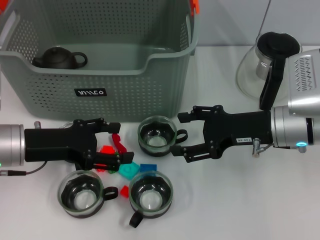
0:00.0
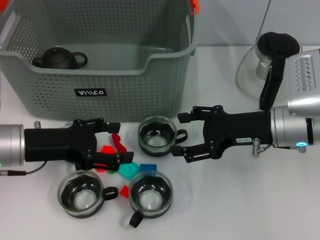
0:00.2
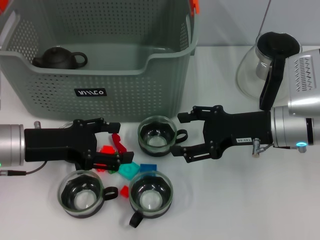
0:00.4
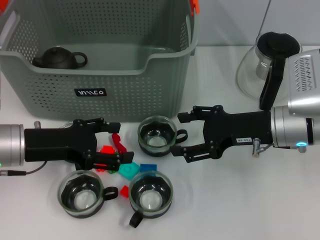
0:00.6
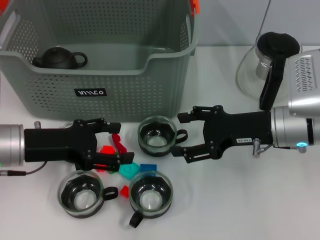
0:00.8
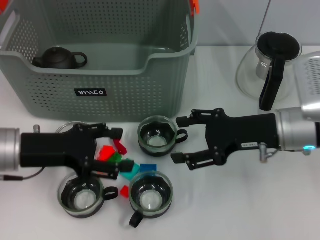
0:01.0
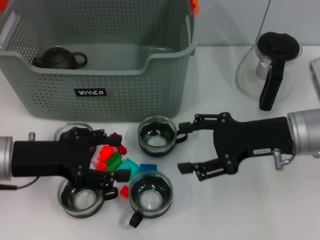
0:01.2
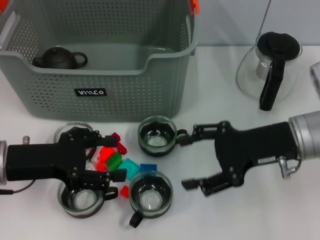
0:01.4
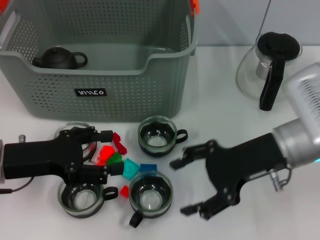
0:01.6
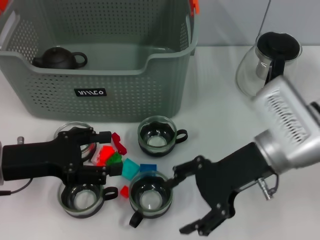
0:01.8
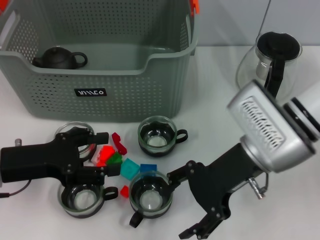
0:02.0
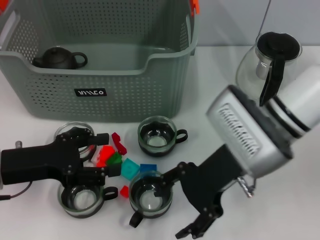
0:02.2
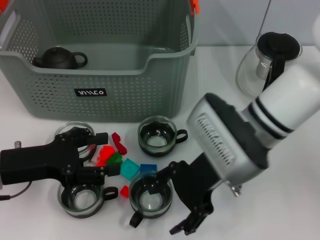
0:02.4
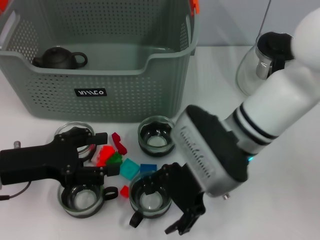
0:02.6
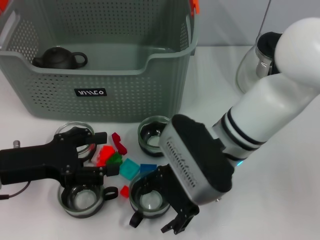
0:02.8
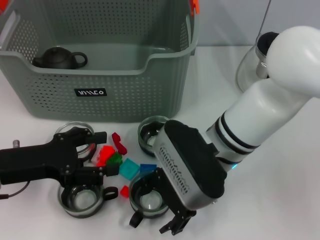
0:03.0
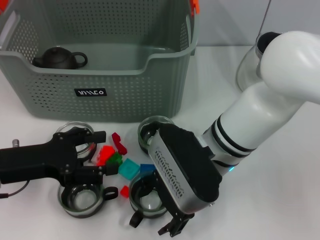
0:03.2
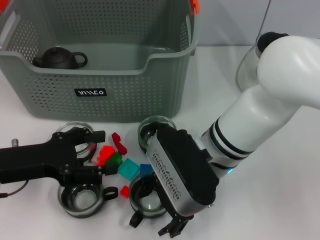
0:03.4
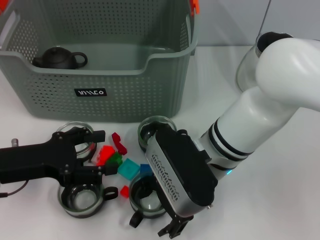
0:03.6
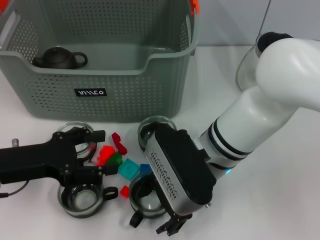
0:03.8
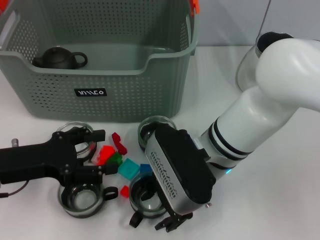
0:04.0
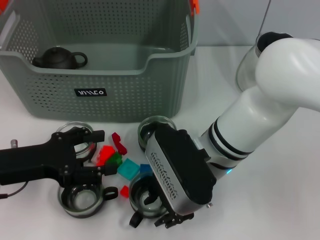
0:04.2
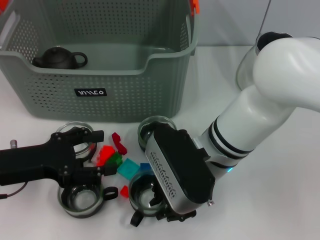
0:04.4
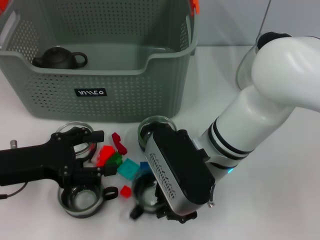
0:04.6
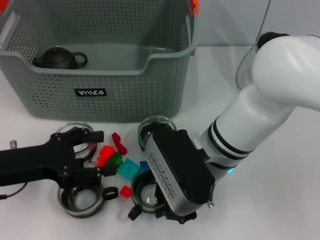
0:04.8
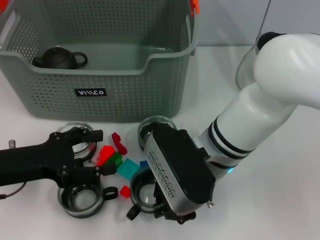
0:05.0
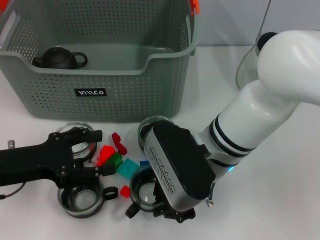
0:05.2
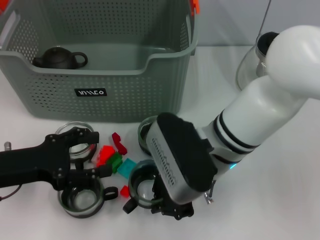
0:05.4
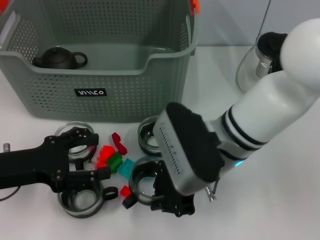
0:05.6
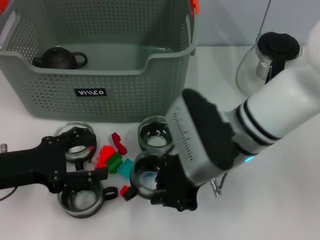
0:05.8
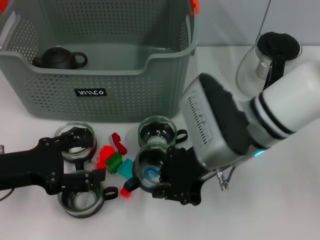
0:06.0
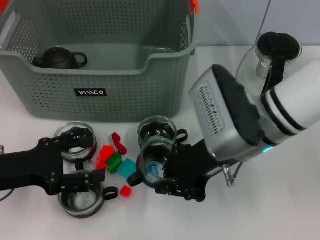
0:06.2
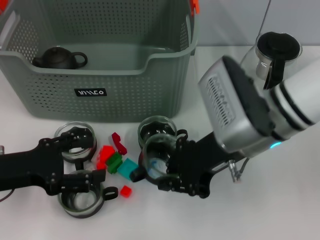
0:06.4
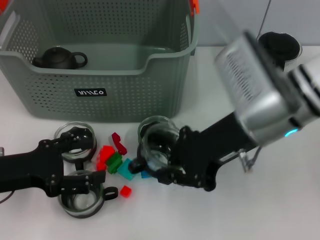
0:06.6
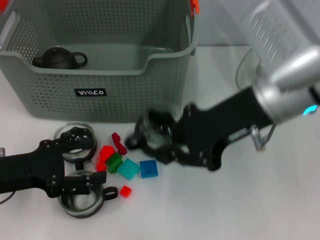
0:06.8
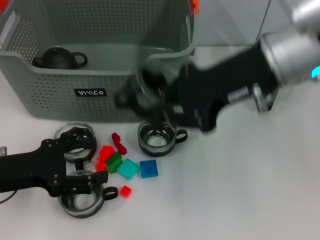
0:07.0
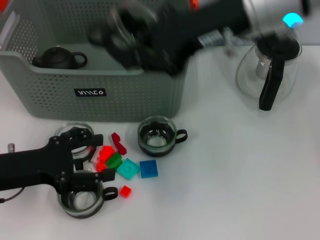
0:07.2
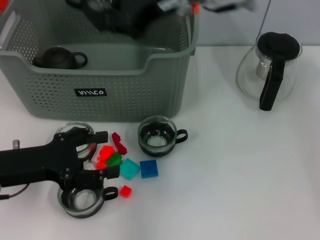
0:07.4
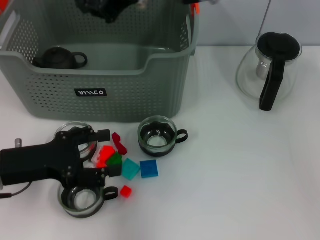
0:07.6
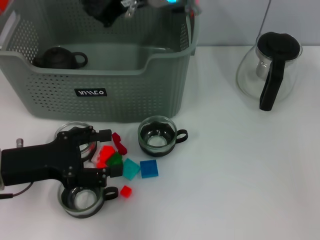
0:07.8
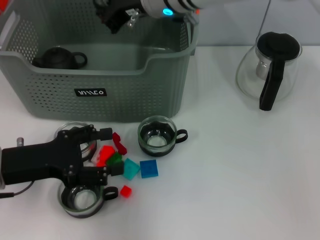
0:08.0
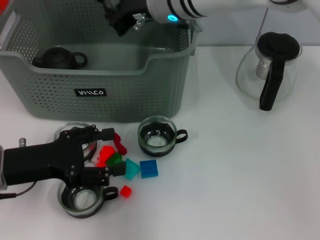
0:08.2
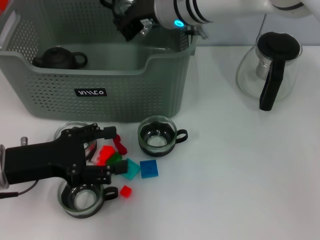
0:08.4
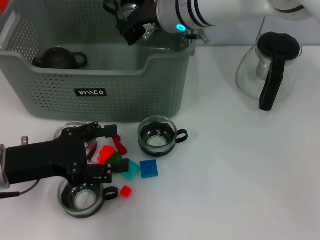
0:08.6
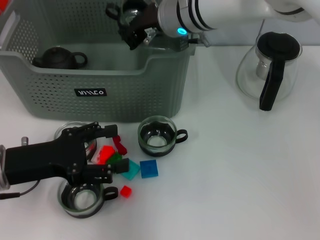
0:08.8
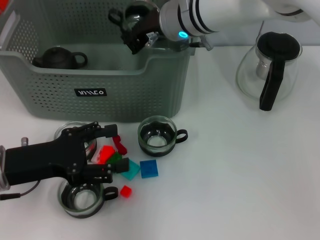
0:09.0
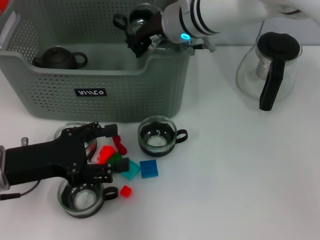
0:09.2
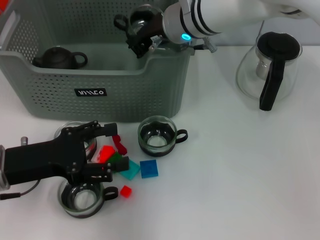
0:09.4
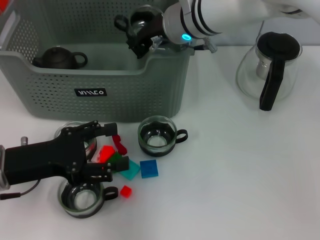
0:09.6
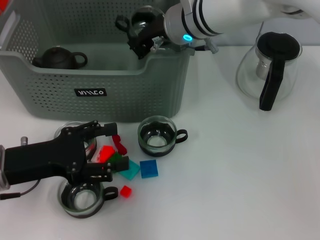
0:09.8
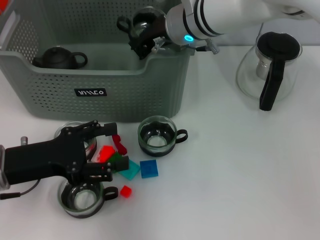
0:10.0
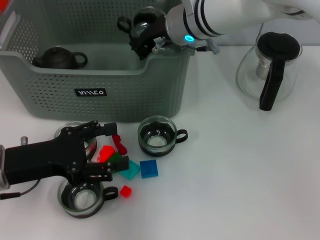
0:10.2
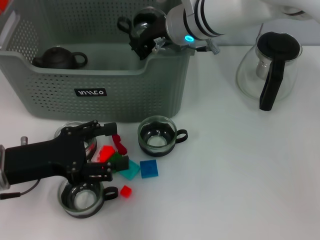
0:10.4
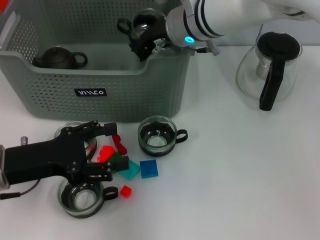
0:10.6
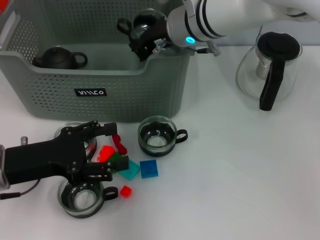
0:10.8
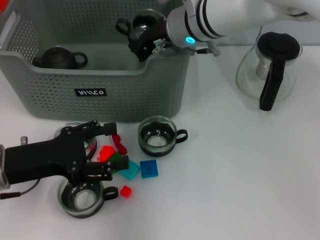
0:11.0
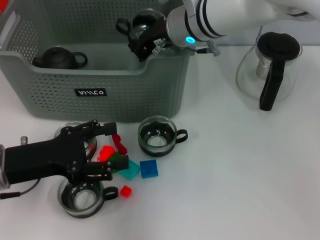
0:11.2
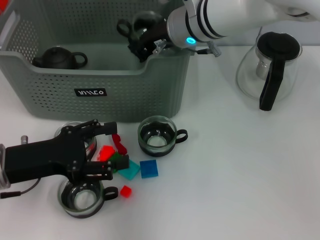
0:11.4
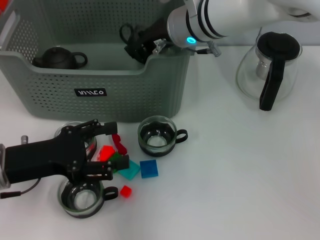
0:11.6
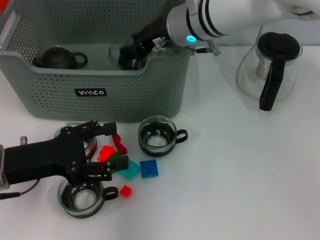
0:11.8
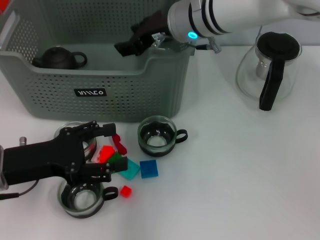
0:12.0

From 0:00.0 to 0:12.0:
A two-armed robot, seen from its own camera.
Task of the whole recording: pick up the teacup on the table and place it into the storage bin, pick up the block on the table and place it into the storage bin.
Step, from 0:00.0 to 0:04.6: Grasp the cup with right gripper.
From 0:01.6 to 0:03.0: The right gripper moves to the left, roughly 10 cm.
From 0:03.0 to 0:04.4: The right gripper closes.
From 0:04.4 to 0:06.0: The right gripper ends up roughly 5 cm from where it was, and closes its fingers.
From 0:06.0 to 0:07.6: The right gripper goes approximately 20 cm upward, forward and to the left.
From 0:07.6 to 0:09.0: The right gripper shifts some 10 cm downward.
From 0:09.0 to 0:10.4: Both grippers stay about where they are.
From 0:10.4 to 0:12.0: The right gripper opens up.

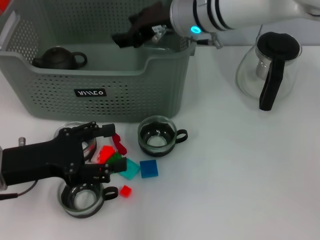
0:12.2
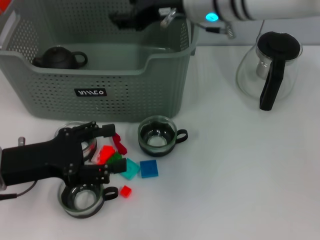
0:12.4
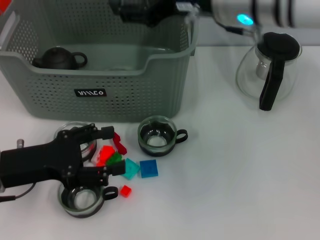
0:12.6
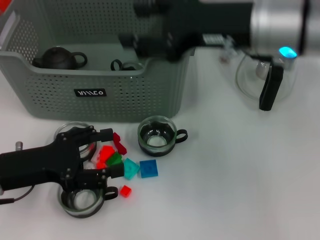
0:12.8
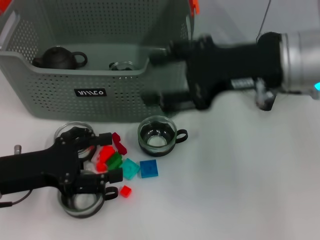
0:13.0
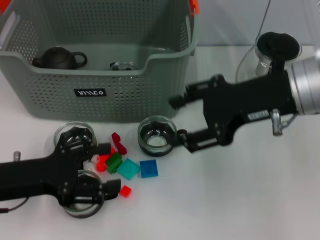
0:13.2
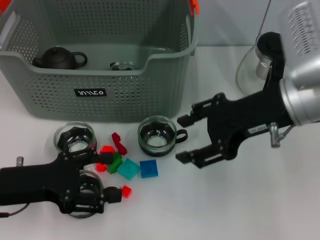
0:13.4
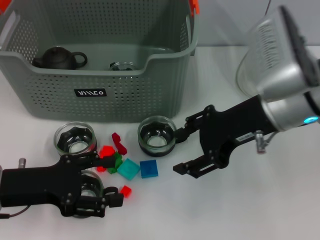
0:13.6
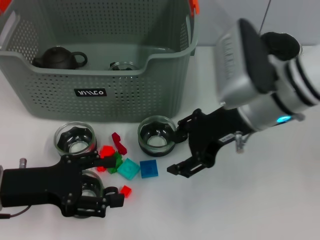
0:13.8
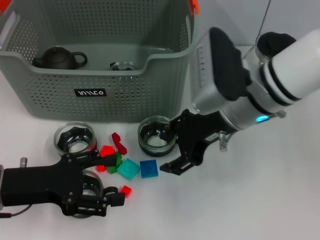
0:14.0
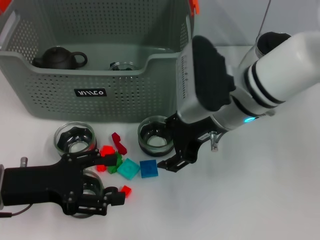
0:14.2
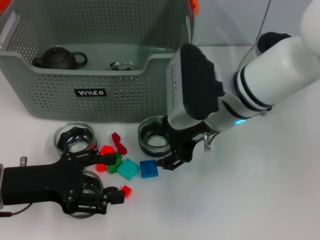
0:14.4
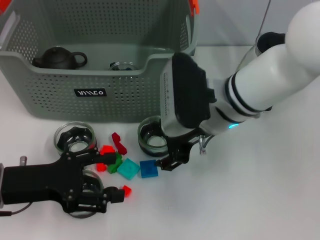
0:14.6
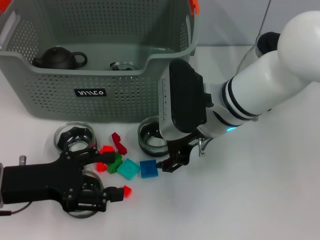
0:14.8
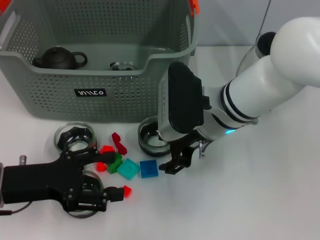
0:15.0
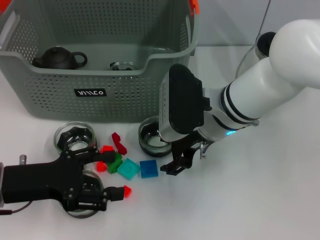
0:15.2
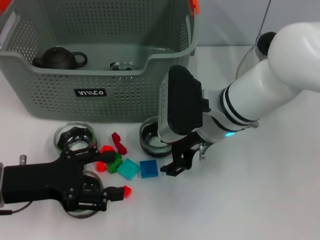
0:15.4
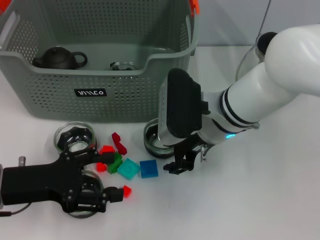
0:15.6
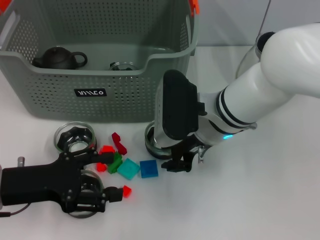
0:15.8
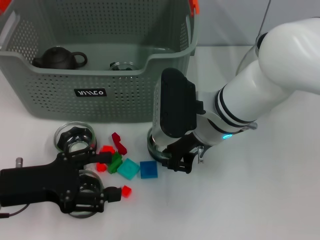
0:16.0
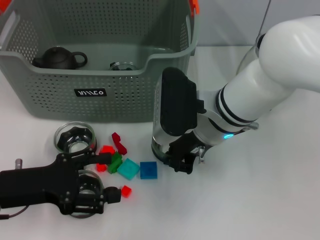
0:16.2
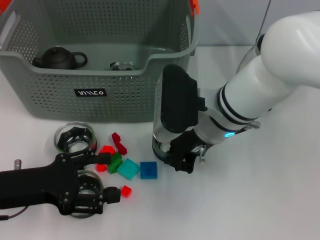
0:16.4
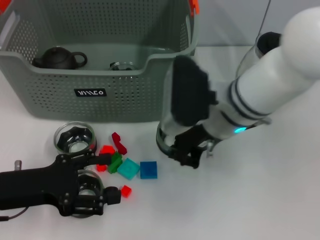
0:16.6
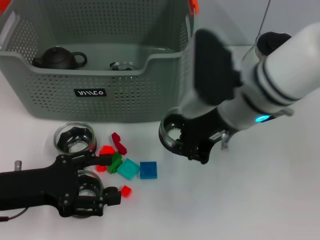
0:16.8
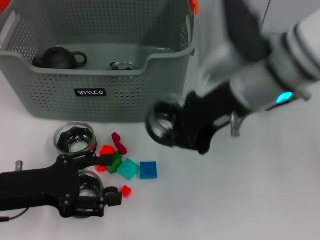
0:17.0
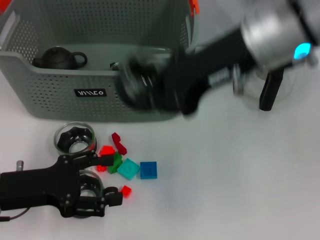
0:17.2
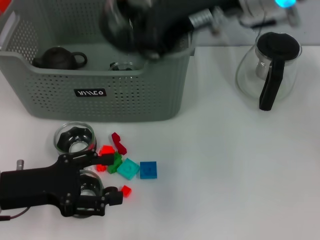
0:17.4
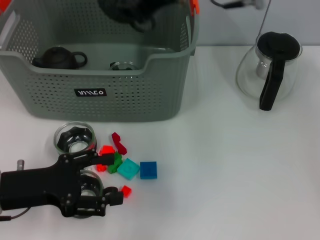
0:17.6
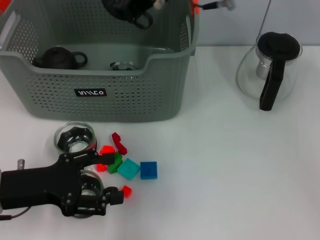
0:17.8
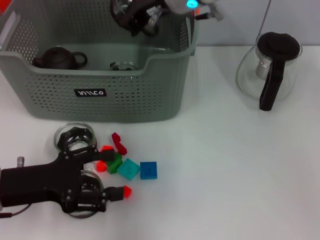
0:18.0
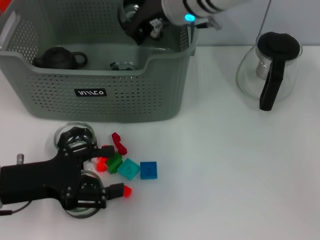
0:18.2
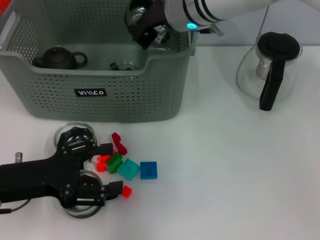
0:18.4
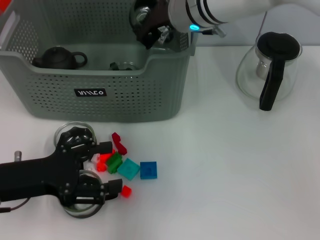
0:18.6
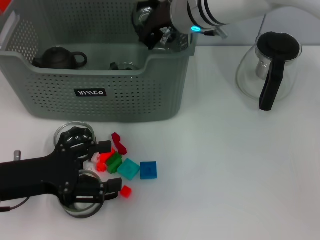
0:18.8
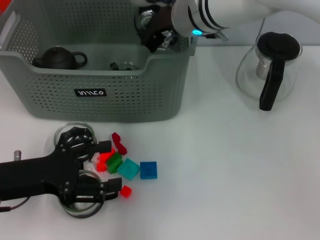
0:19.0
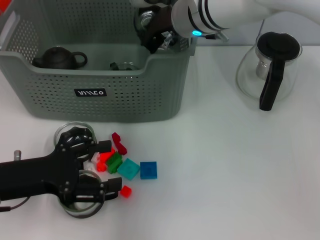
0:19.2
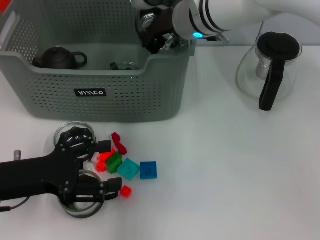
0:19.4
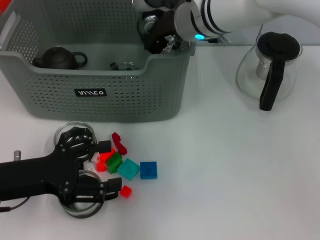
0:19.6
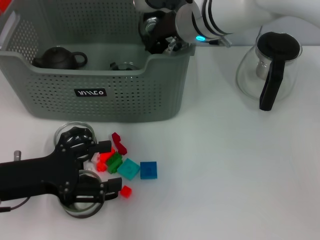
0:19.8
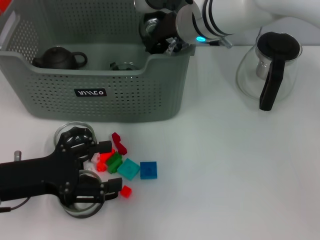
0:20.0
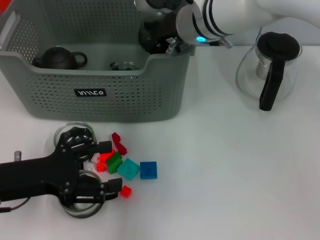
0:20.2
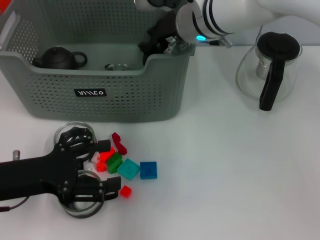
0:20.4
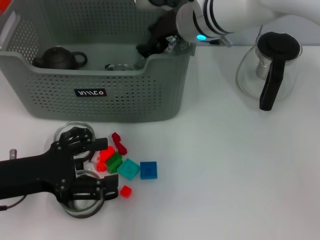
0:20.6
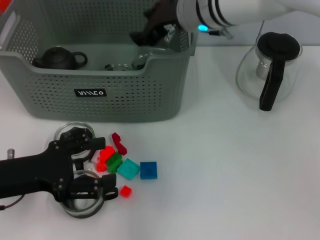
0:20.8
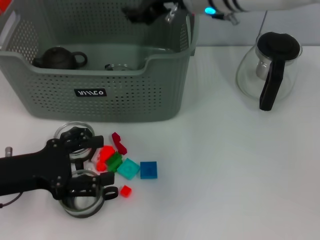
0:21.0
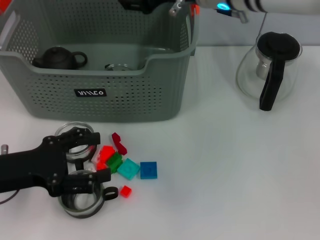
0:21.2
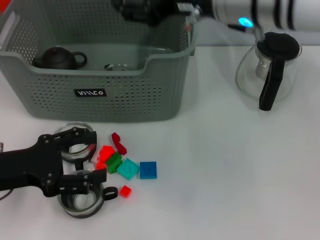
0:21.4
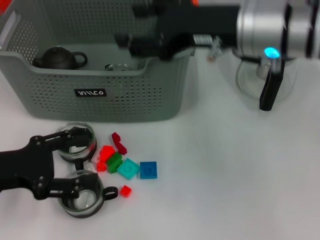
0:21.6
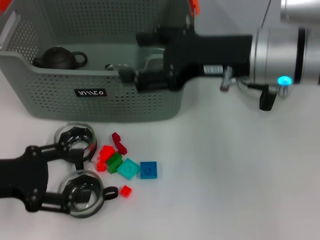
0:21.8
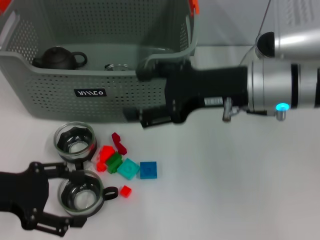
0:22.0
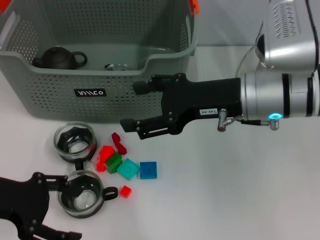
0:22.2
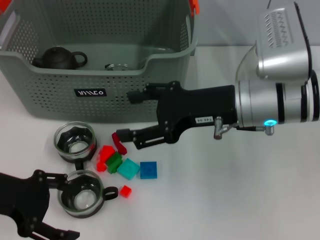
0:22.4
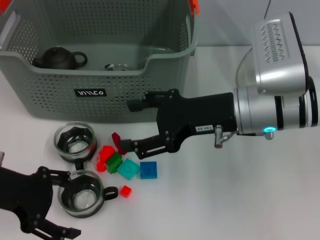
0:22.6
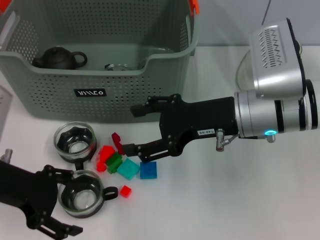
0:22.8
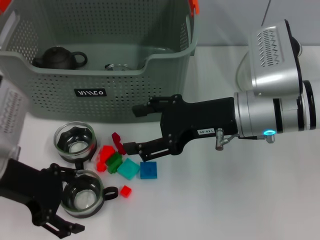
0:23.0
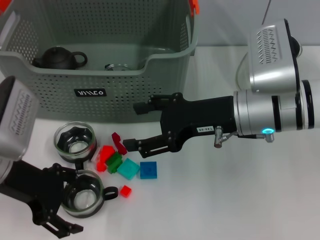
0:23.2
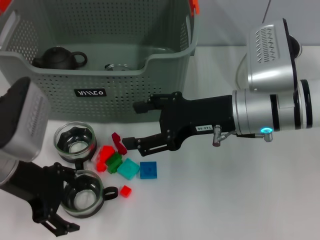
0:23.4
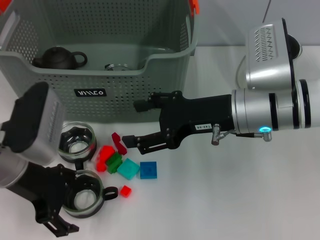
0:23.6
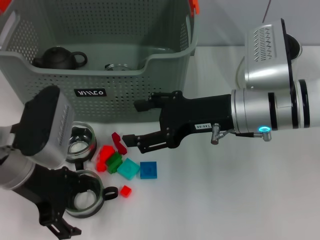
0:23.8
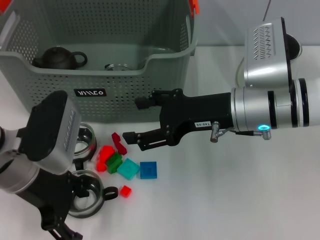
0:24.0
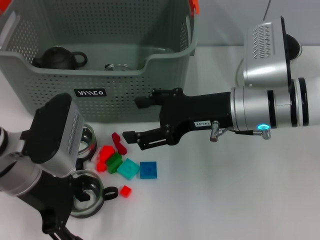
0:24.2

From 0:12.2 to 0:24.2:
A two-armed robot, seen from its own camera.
Task of the whole recording: pick up the teacup on the table and place it into the storage bin, pick up the block on the table and place it into the storage bin.
Step, from 0:12.6 to 0:16.2: Grasp the cup with right gripper.
Step, from 0:16.4 to 0:21.0: Place the cup in the storage box with right gripper.
From 0:12.2 to 0:13.8: The right gripper travels backward and to the right by approximately 15 cm.
From 0:13.8 to 0:15.2: The right gripper travels downward and to the left by roughly 10 cm.
From 0:15.2 to 0:16.6: The right gripper closes its fingers.
From 0:16.6 to 0:18.2: The right gripper goes approximately 15 cm forward and upward.
From 0:18.2 to 0:19.8: There are only small adjustments of the grippers.
From 0:19.8 to 0:21.2: The right gripper heads upward, covering about 5 cm, and opens.
From 0:21.2 to 0:22.6: The right gripper travels downward, backward and to the right by roughly 15 cm.
From 0:22.6 to 0:24.2: The left gripper is displaced to the right by about 10 cm.
